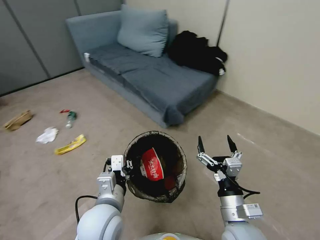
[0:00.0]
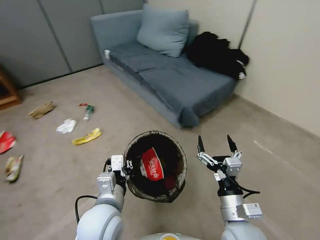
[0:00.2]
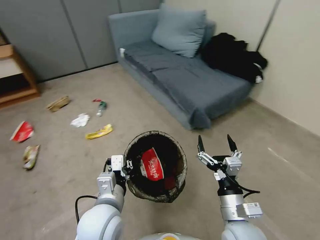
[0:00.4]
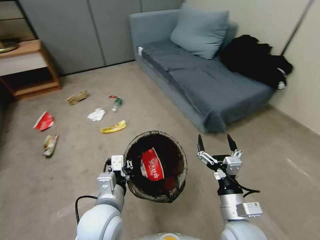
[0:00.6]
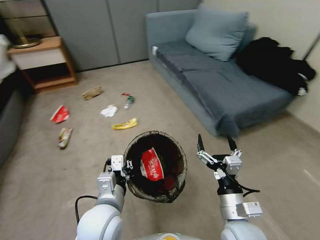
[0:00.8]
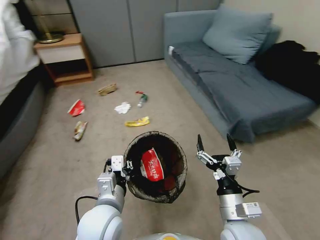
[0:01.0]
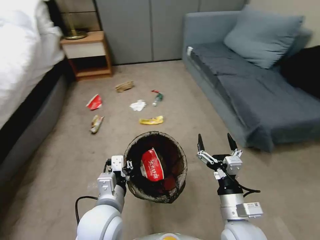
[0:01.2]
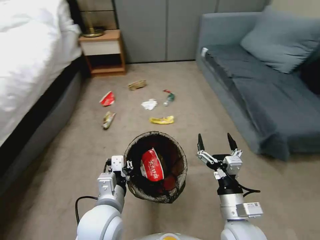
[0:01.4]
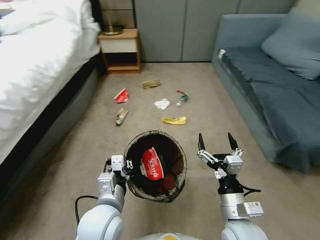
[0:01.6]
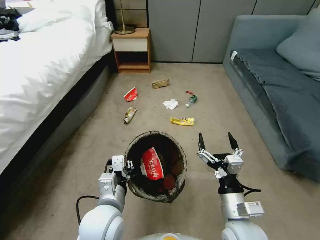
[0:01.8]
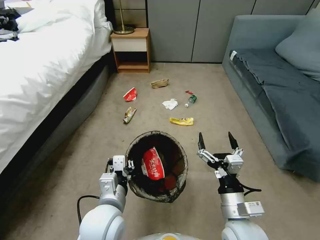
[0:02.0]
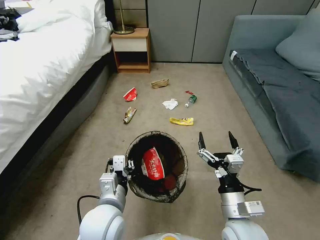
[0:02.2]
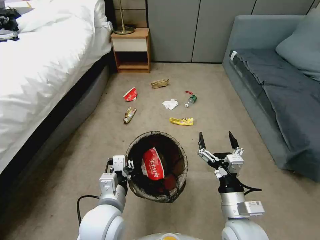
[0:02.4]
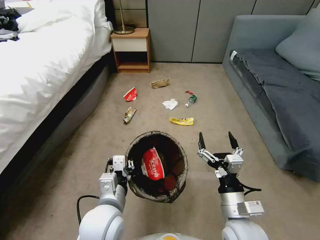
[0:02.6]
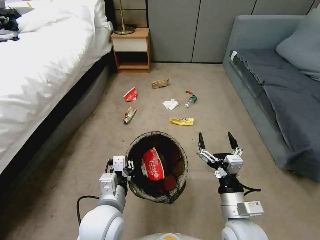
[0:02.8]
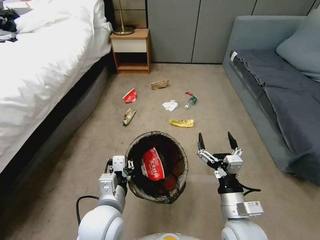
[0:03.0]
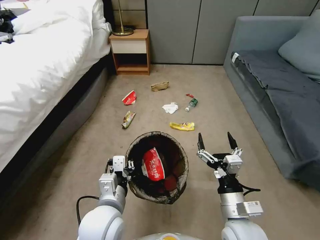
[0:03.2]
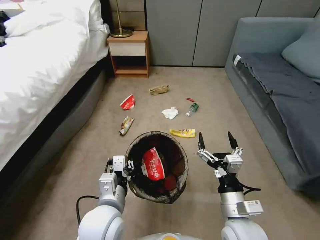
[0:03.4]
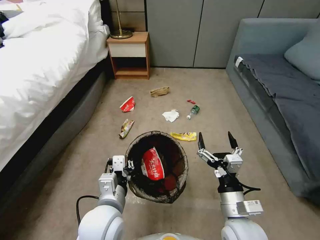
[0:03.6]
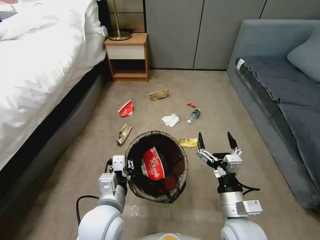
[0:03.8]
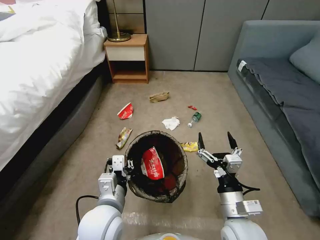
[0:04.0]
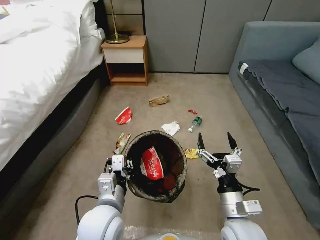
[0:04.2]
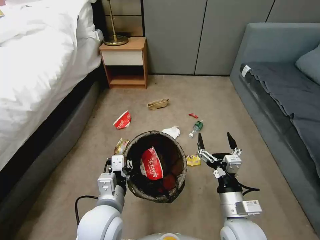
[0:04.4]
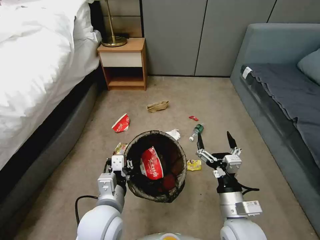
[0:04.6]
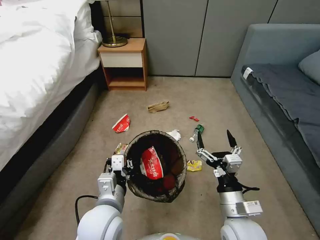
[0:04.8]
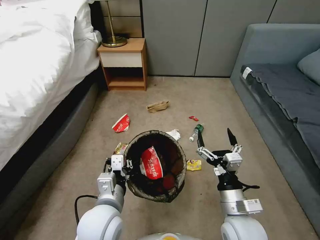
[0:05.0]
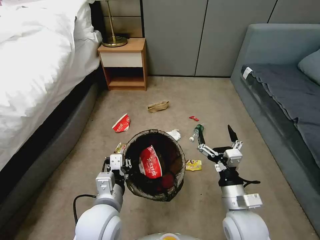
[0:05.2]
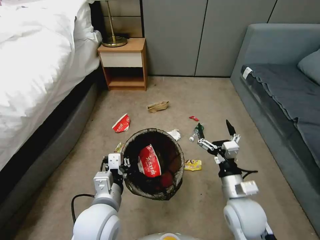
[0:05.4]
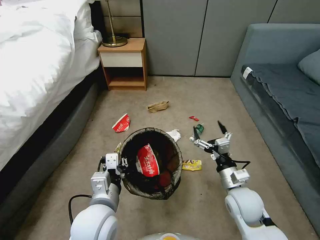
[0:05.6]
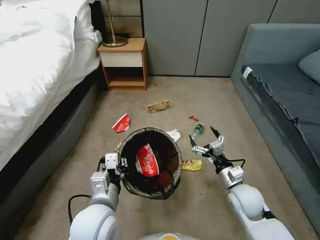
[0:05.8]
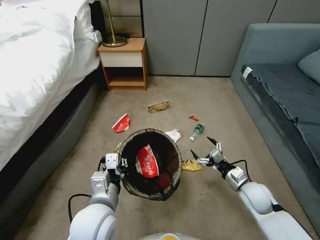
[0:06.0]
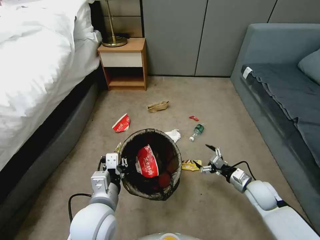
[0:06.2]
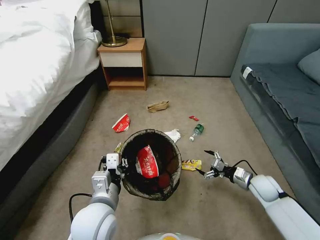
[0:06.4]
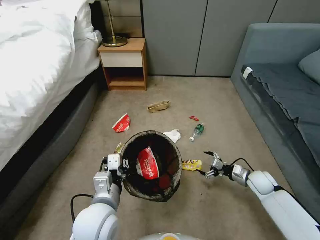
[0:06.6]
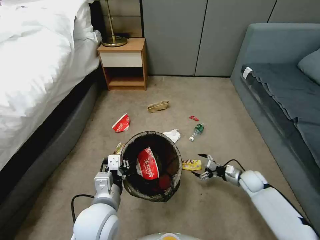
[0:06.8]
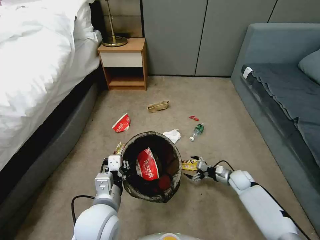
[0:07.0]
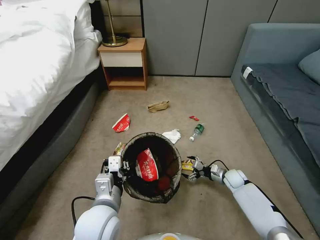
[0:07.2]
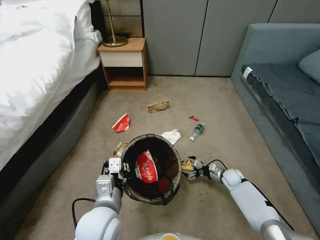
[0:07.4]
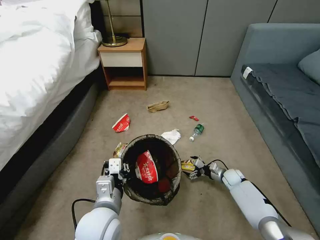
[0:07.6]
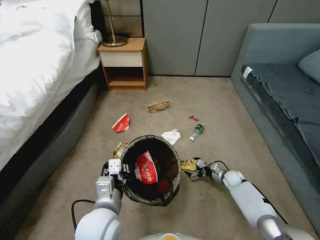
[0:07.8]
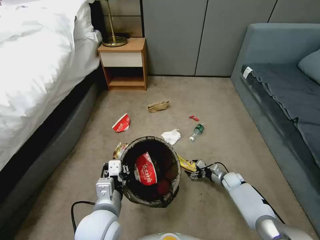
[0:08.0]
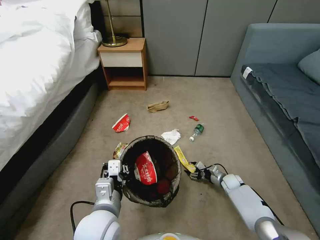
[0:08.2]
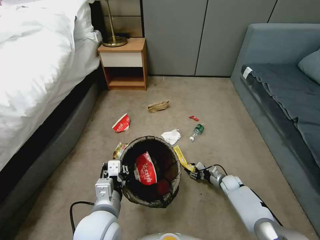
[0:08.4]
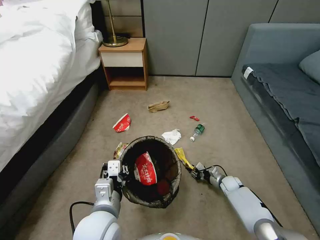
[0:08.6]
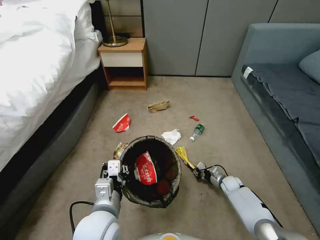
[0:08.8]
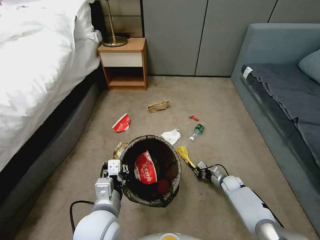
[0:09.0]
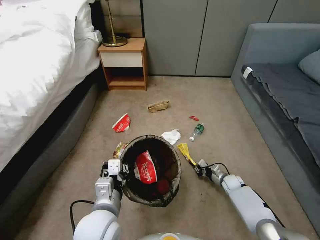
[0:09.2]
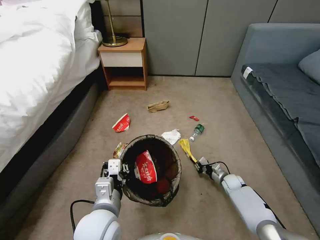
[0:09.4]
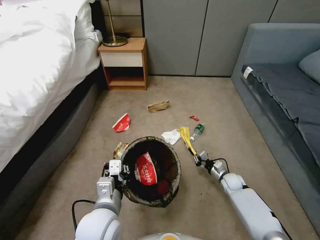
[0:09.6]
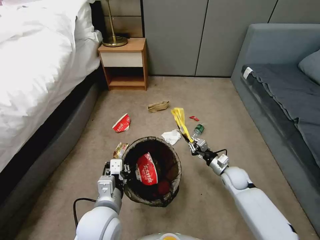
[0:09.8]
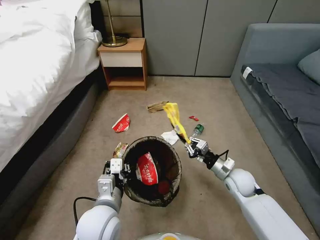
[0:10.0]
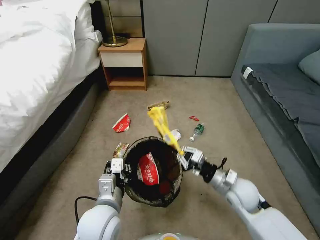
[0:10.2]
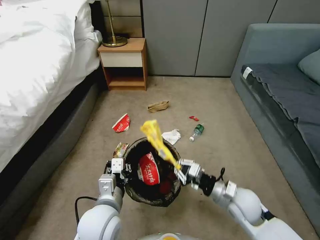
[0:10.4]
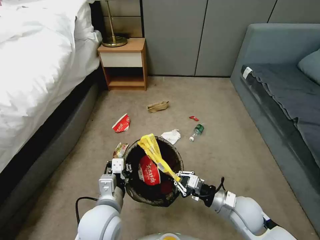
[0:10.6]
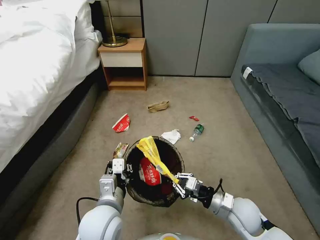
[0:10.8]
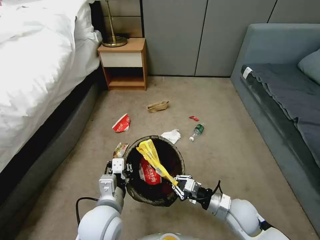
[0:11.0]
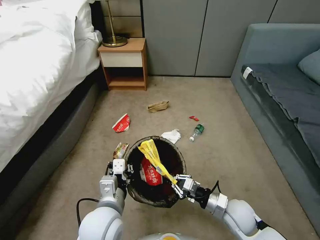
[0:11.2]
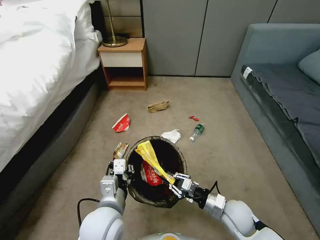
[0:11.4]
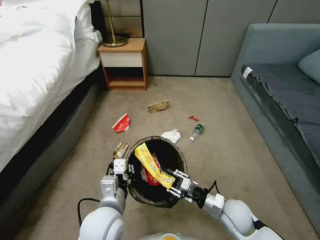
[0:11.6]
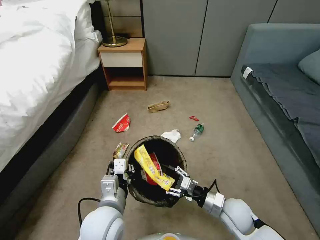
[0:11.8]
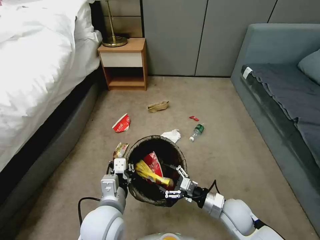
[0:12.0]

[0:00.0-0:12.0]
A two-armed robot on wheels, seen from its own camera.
Task of the whole recording: Pick up the trash bin, then pick up the garbage from the floor and place it into the trash bin.
0:04.4 to 0:06.0: The right gripper is displaced forward, to the right and downward by roughly 20 cm.
0:06.0 to 0:07.6: The right gripper moves downward and forward, some 20 cm.
0:07.6 to 0:09.0: The right gripper closes.
0:09.0 to 0:10.4: The right gripper moves upward, backward and to the left, some 25 cm.
0:10.4 to 0:12.0: The right gripper moves approximately 5 cm, and opens its fingers.

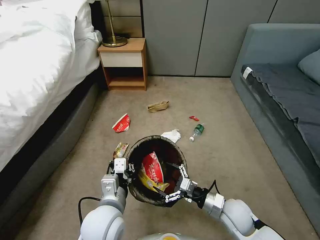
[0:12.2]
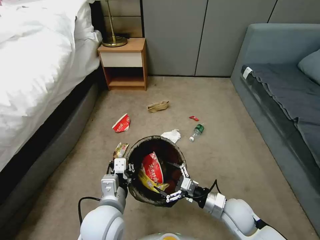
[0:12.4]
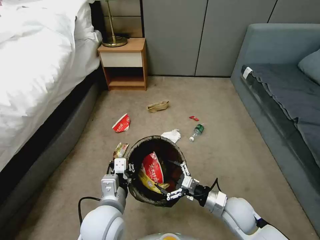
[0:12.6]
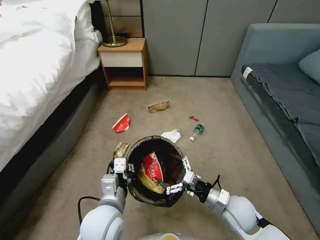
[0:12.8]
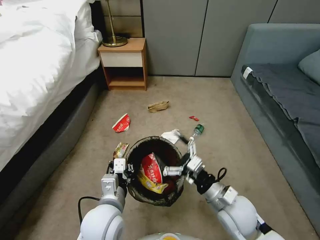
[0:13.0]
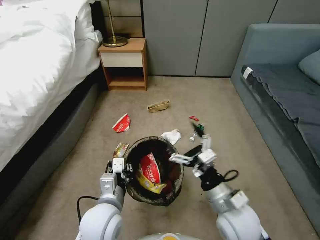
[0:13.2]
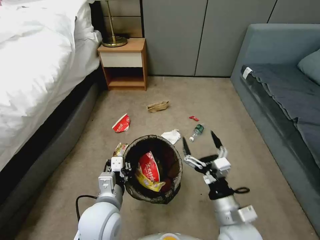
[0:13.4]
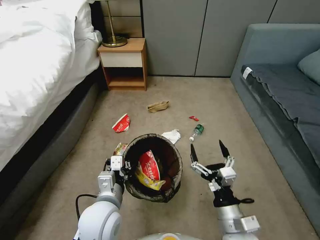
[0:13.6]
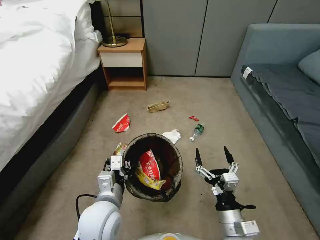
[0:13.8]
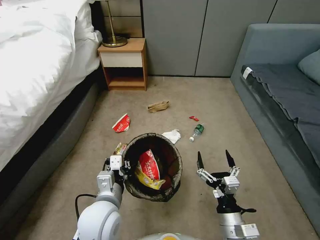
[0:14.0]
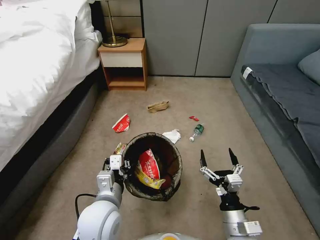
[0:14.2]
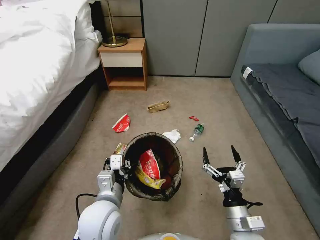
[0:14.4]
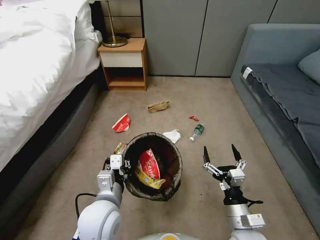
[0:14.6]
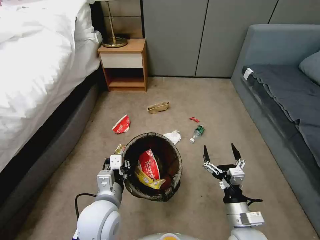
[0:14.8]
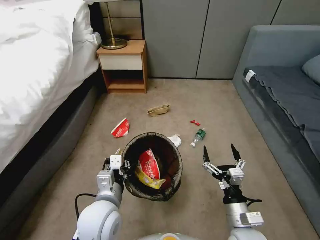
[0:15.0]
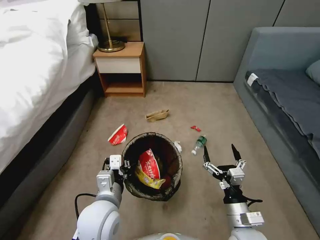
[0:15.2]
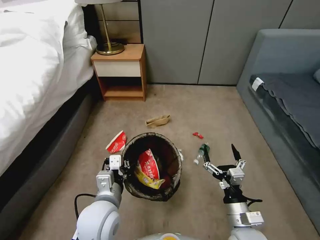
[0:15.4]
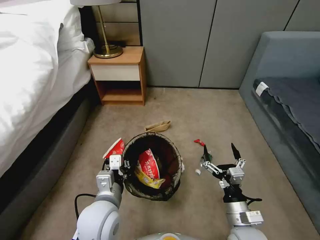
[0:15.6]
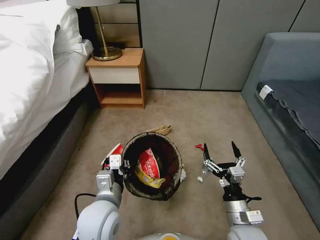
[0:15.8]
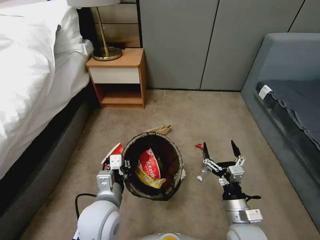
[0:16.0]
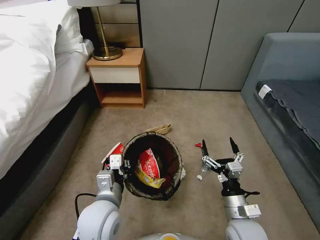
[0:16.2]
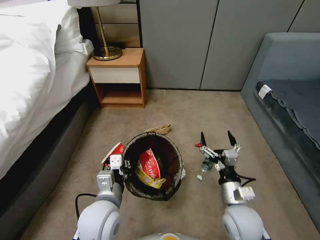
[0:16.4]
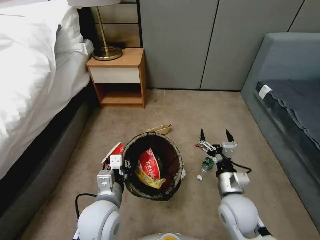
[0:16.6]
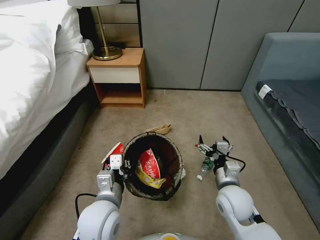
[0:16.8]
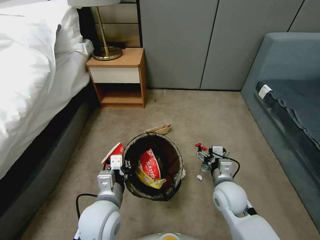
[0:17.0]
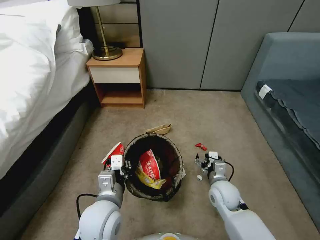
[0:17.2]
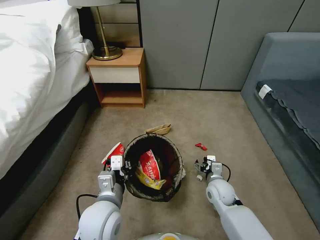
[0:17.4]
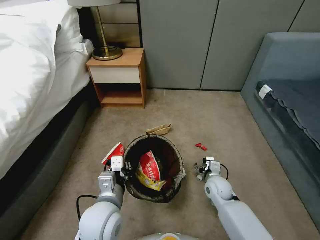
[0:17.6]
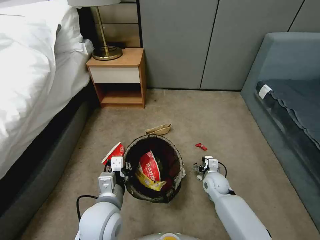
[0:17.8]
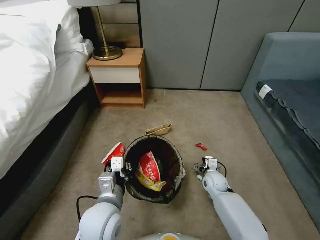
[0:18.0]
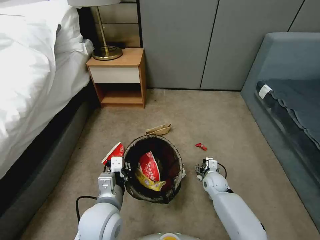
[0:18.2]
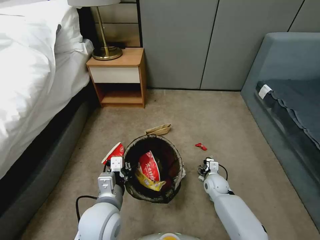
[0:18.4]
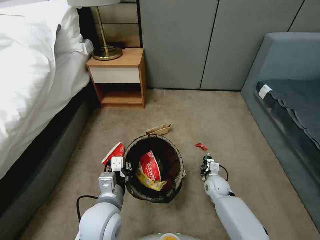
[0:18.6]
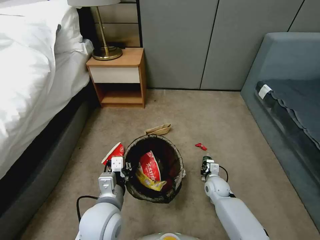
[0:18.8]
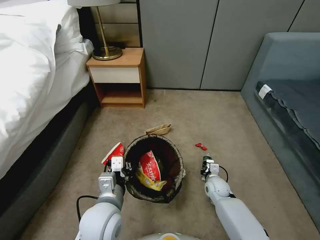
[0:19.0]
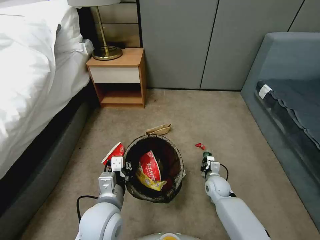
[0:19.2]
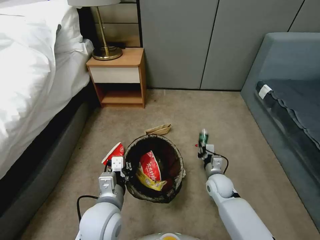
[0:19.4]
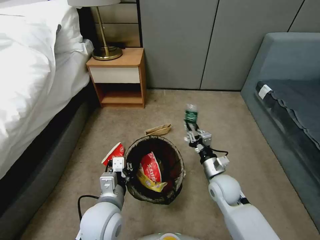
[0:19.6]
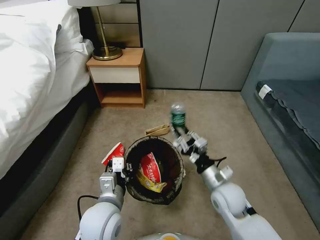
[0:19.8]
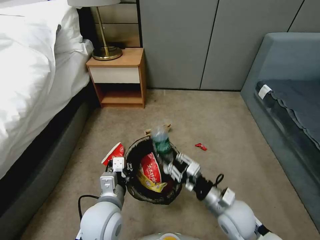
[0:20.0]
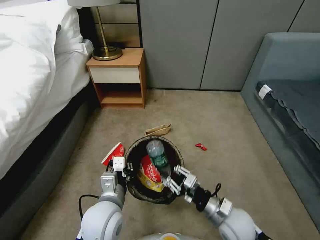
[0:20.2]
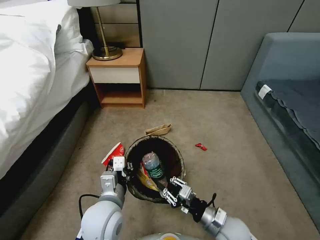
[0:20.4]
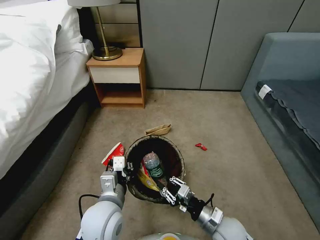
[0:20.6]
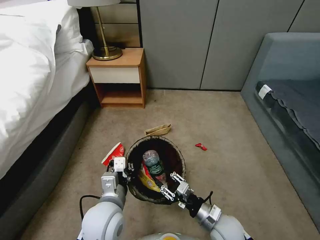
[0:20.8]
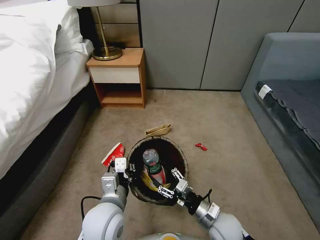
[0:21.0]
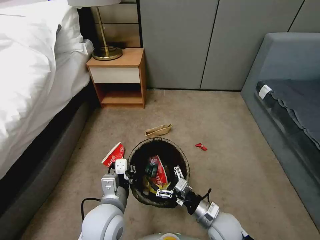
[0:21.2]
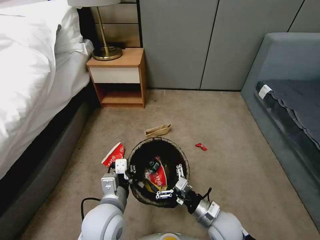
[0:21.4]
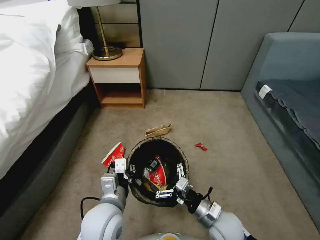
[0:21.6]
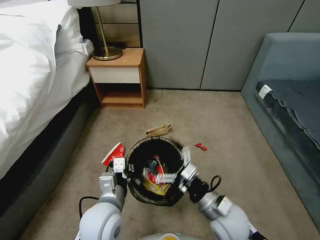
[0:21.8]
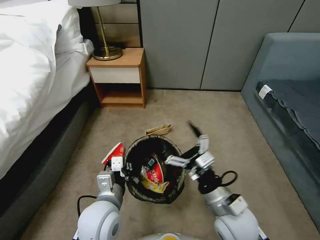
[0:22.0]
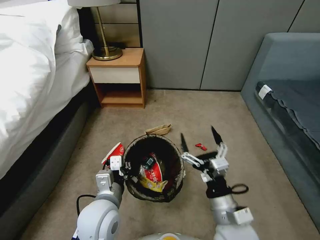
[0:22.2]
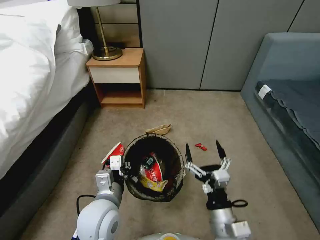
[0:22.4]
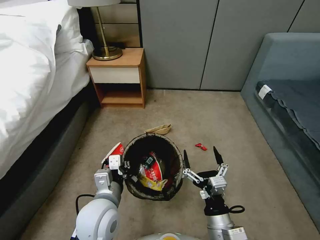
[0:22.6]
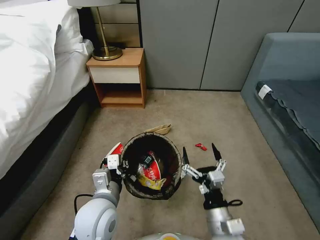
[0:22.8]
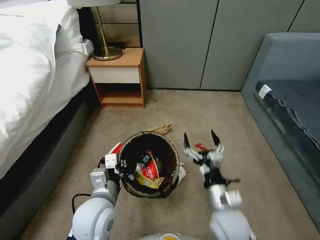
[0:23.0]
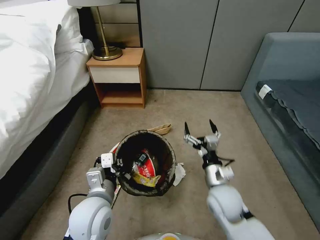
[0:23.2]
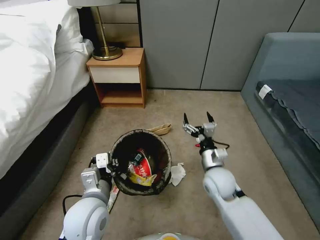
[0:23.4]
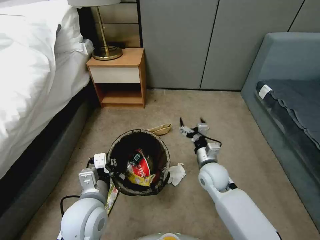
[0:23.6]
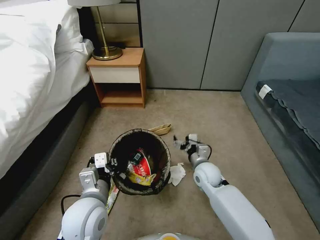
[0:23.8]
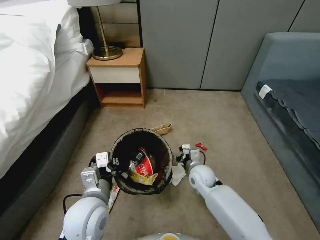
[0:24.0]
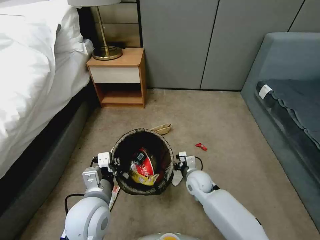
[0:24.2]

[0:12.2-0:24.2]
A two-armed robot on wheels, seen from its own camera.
Task of the whole recording: Pick up the trash bin, then pick up the garbage from the floor and place it into the trash bin.
0:12.2 to 0:13.8: The right gripper goes roughly 10 cm backward and upward.
0:13.8 to 0:15.2: The grippers make only small movements.
0:15.2 to 0:16.6: The right gripper goes roughly 5 cm forward.
0:16.6 to 0:18.2: The right gripper travels downward and forward by some 25 cm.
0:18.2 to 0:19.8: The right gripper travels upward and backward by roughly 20 cm, and closes its fingers.
0:19.8 to 0:21.2: The right gripper is displaced downward and backward by some 10 cm, and opens up.
0:21.2 to 0:22.6: The right gripper travels backward and upward by roughly 10 cm.
0:22.6 to 0:24.2: The right gripper shifts approximately 25 cm forward and downward.
